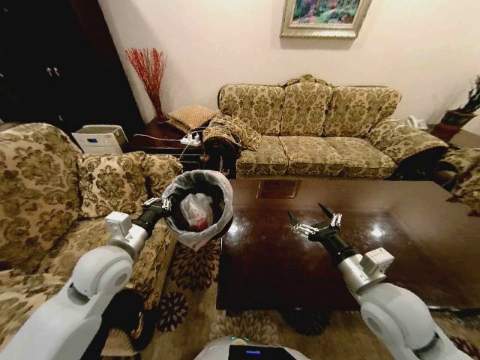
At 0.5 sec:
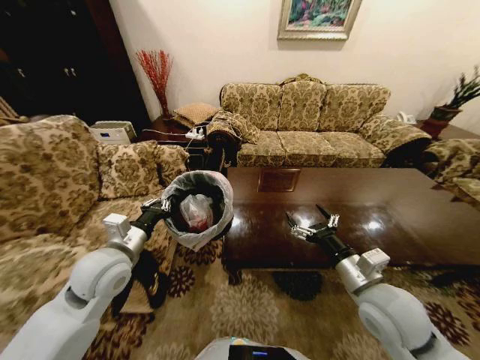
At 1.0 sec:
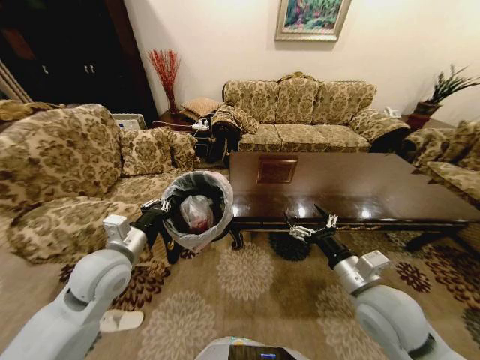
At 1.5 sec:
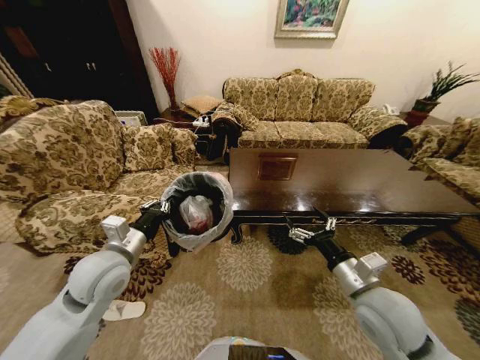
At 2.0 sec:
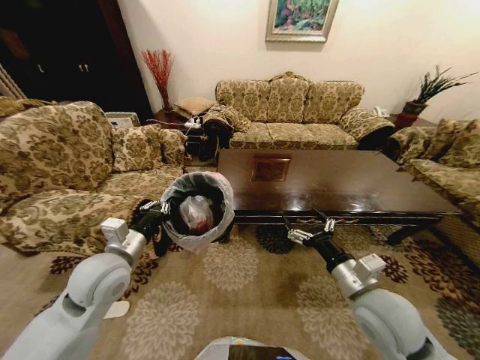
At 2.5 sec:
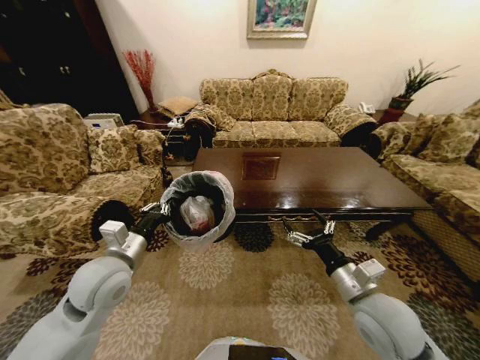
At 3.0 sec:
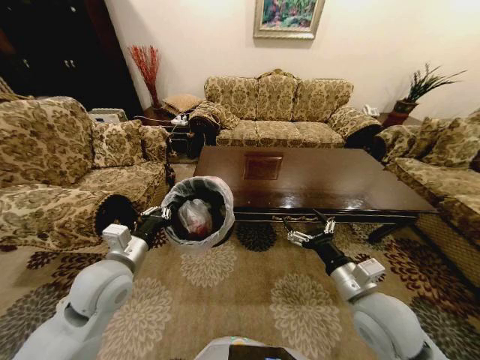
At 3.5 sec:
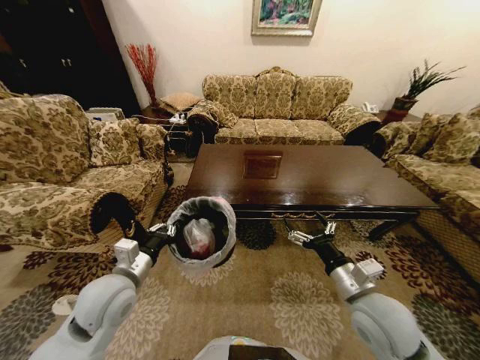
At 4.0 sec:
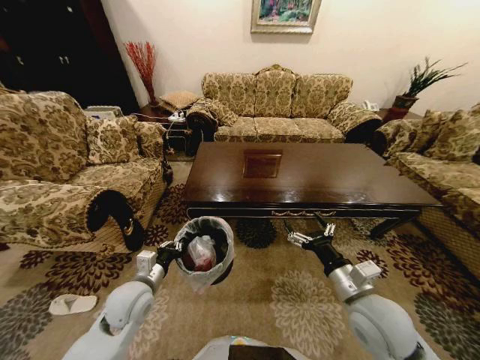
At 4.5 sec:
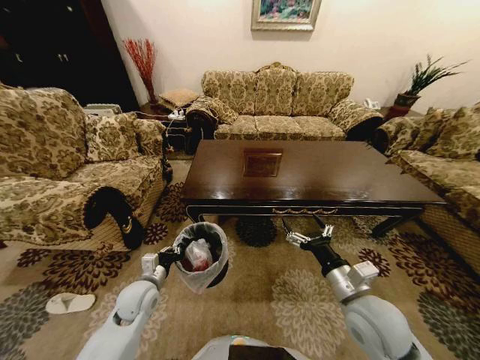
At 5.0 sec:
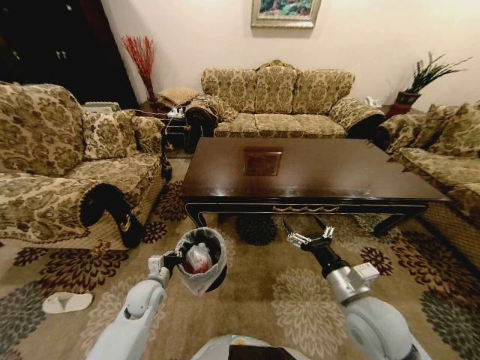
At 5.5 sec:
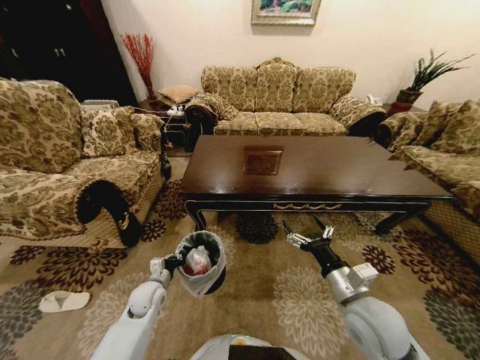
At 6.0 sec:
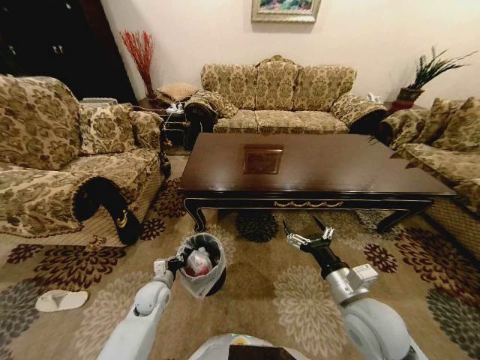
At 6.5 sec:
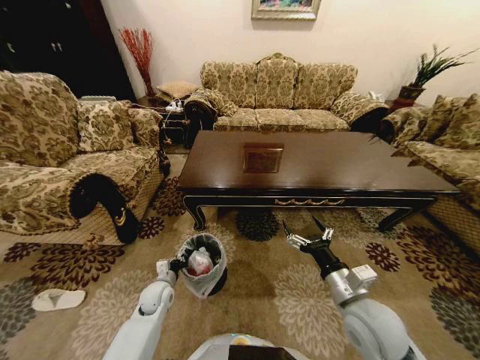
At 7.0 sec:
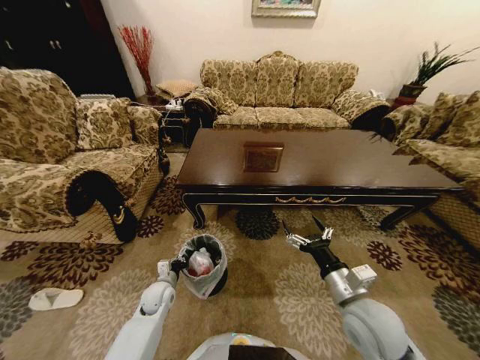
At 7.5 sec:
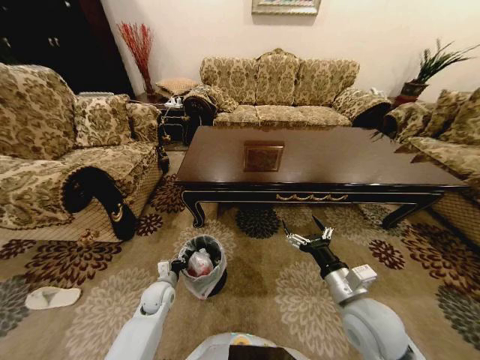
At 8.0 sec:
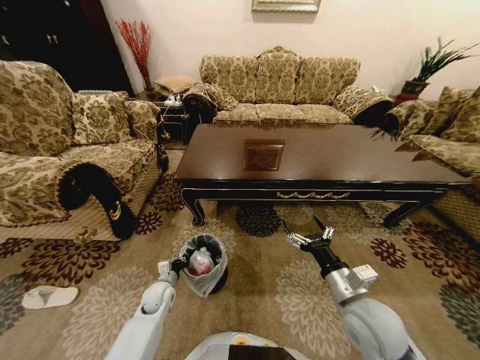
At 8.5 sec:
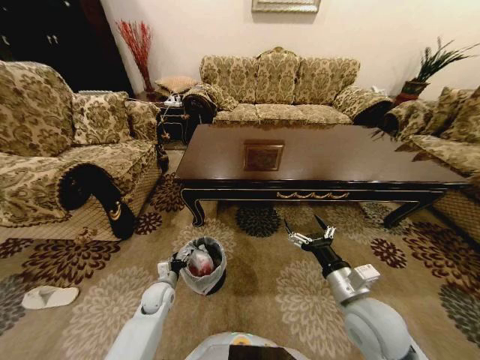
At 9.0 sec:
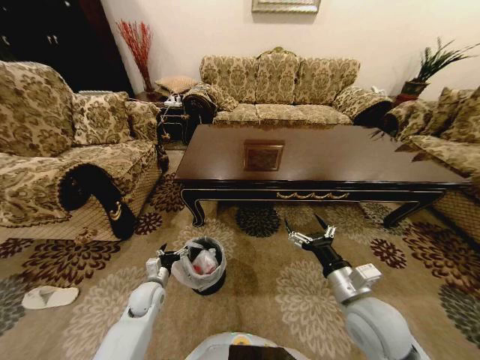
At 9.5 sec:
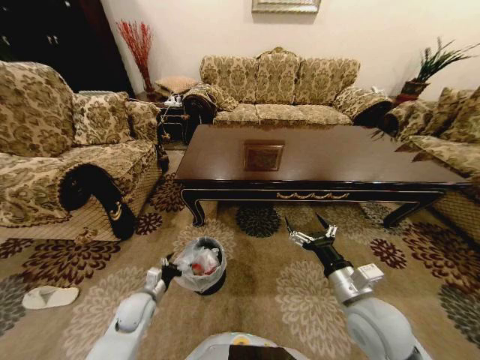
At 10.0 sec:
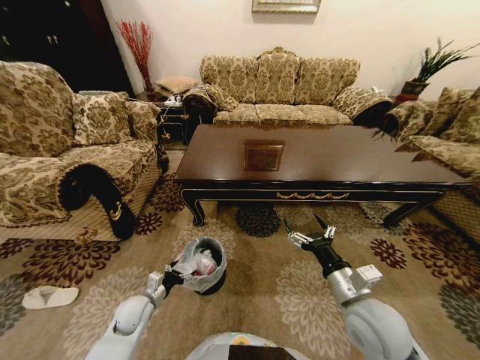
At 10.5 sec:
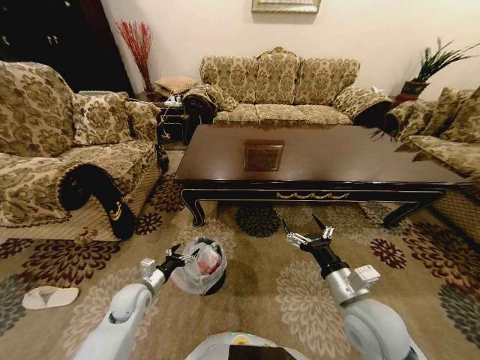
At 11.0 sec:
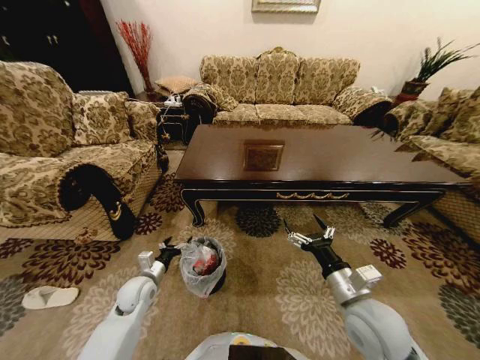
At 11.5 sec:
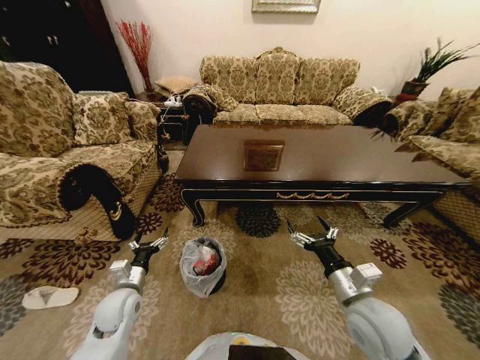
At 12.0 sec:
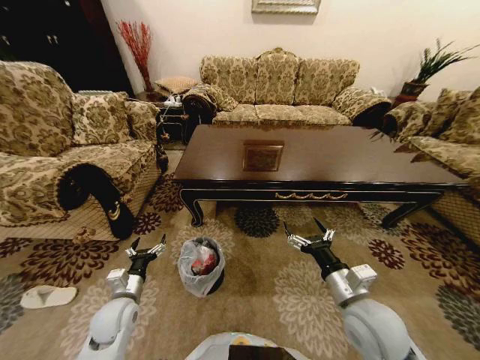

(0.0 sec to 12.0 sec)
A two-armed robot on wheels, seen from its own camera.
Task of the whole recording: Move to the front of the table and place the trash on the table into the trash bin.
2.0 sec - 4.0 sec: The left gripper goes approximately 10 cm downward.
4.0 sec - 6.0 sec: The left gripper moves downward, roughly 15 cm.
8.0 sec - 10.0 sec: The left gripper changes place by some 5 cm, and opens.
10.0 sec - 12.0 sec: The left gripper is displaced upward by approximately 10 cm.

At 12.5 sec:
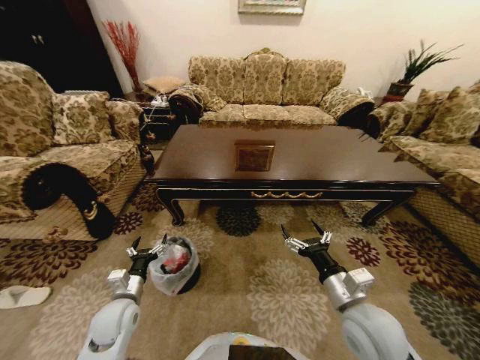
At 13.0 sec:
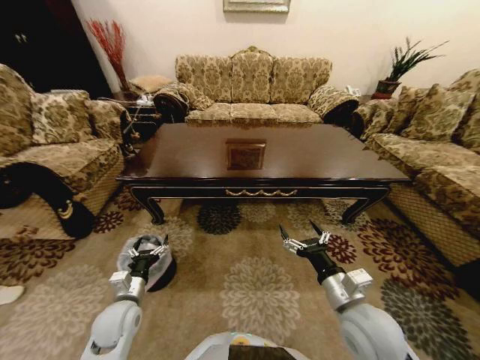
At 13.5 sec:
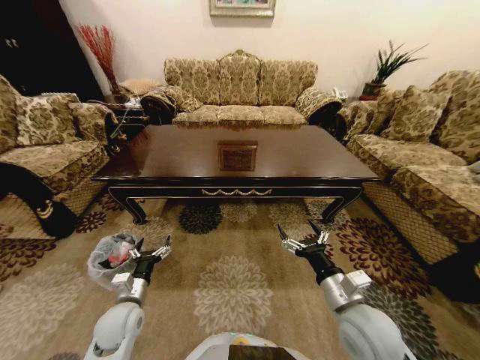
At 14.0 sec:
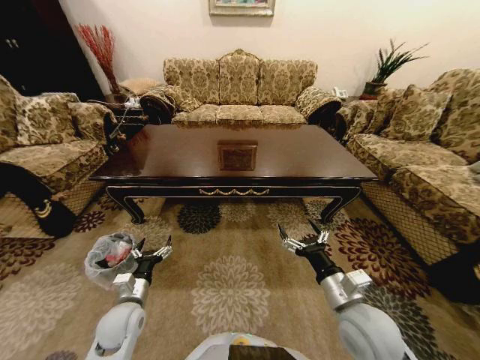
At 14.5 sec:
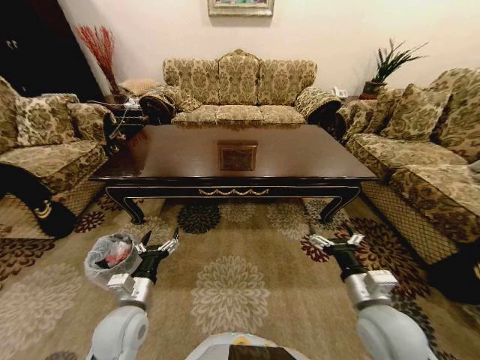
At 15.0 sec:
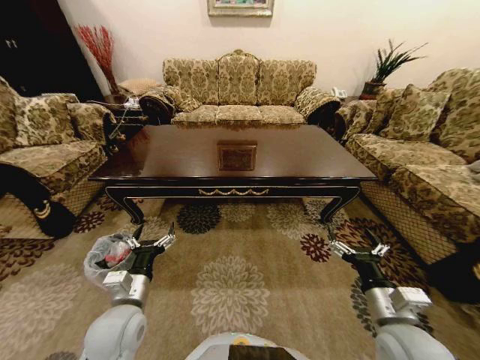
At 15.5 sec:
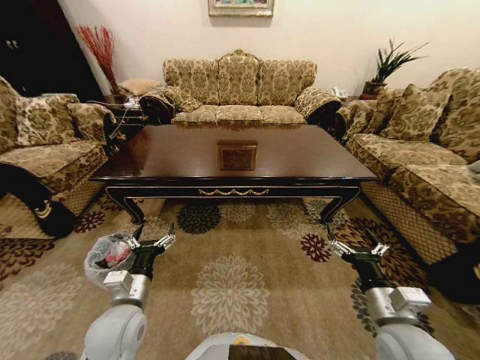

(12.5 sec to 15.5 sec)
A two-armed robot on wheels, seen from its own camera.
Task of the whole recording: Move to the front of the table and place the trash on the table into the trash bin.
14.0 sec - 15.5 sec: The left gripper is displaced upward by roughly 10 cm, while the right gripper is displaced to the right by about 5 cm.
